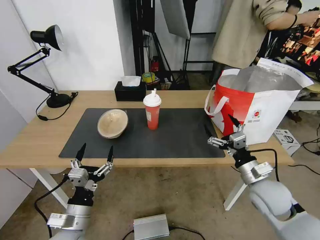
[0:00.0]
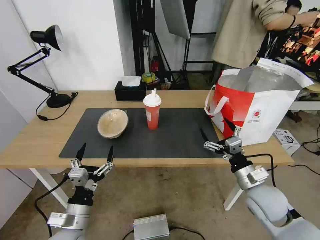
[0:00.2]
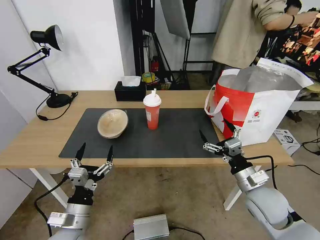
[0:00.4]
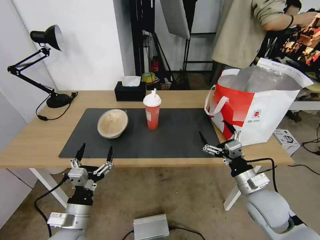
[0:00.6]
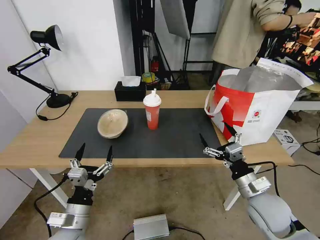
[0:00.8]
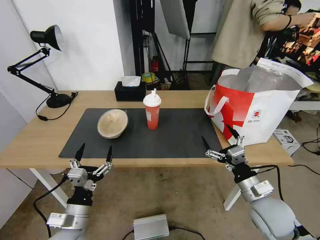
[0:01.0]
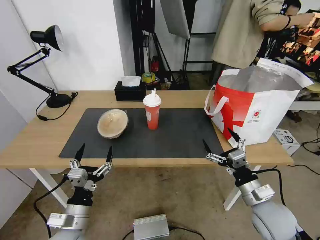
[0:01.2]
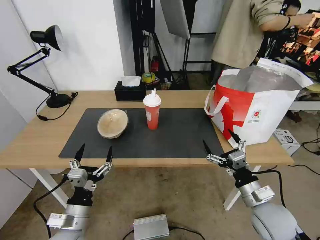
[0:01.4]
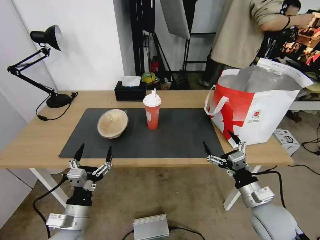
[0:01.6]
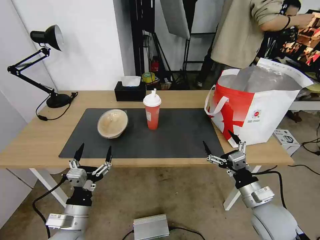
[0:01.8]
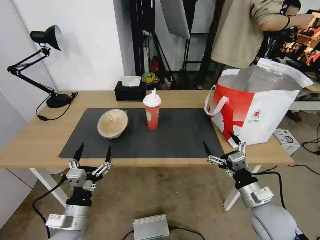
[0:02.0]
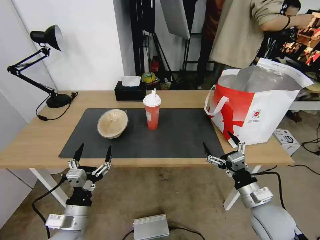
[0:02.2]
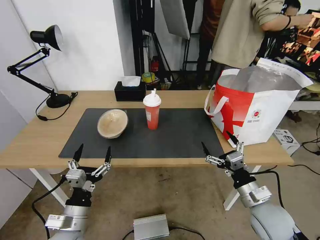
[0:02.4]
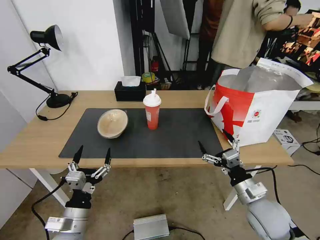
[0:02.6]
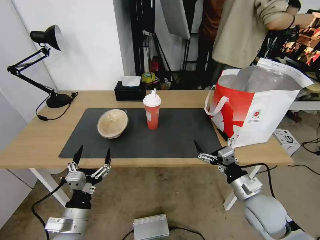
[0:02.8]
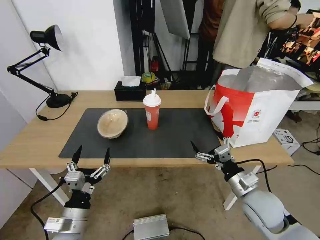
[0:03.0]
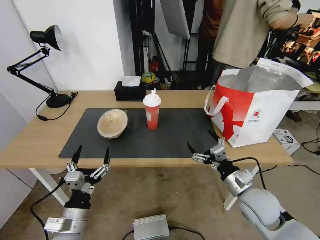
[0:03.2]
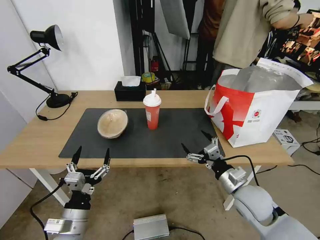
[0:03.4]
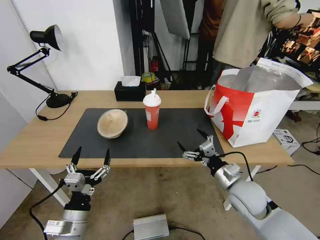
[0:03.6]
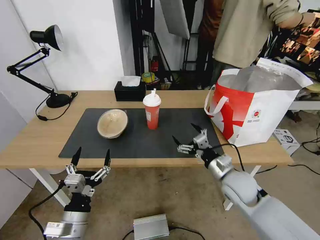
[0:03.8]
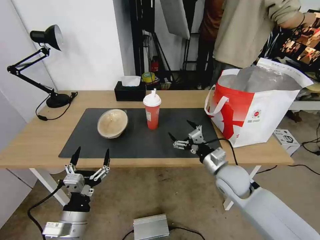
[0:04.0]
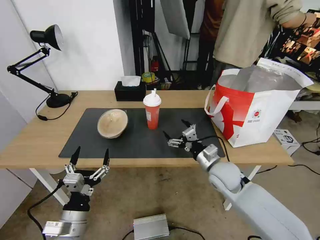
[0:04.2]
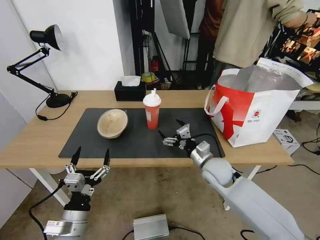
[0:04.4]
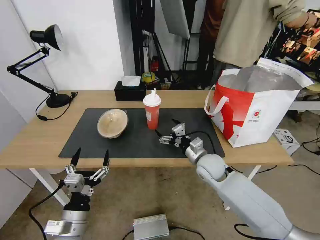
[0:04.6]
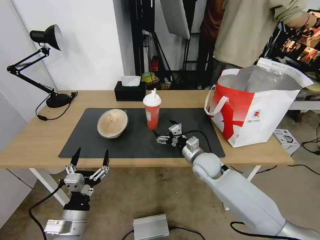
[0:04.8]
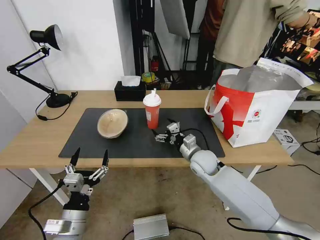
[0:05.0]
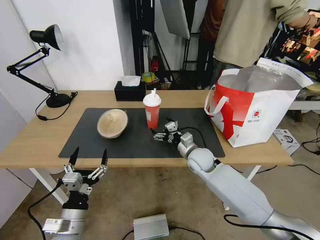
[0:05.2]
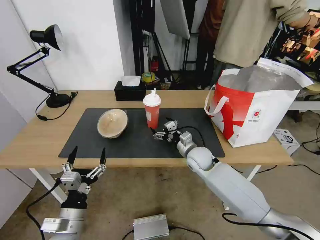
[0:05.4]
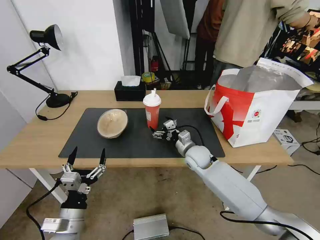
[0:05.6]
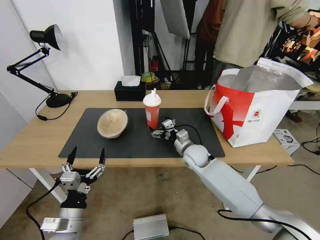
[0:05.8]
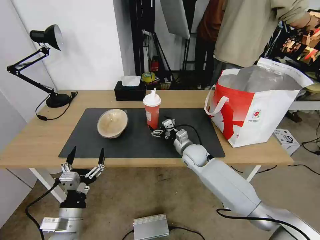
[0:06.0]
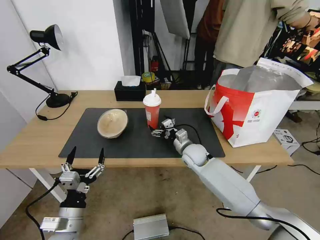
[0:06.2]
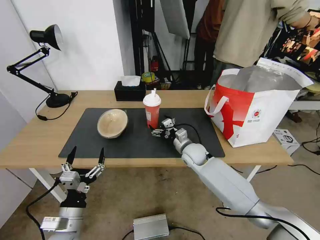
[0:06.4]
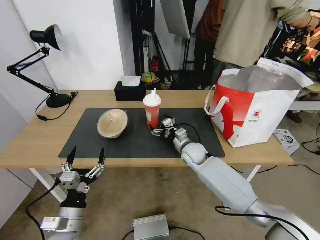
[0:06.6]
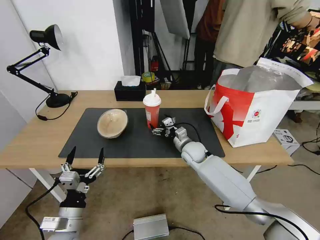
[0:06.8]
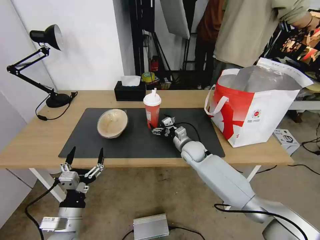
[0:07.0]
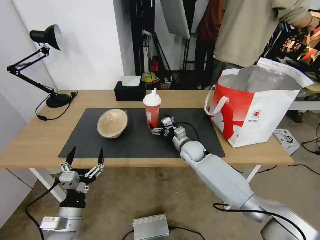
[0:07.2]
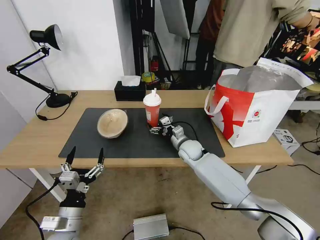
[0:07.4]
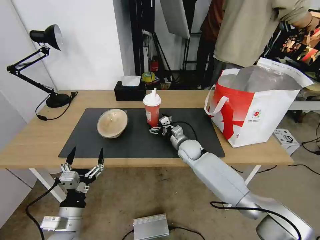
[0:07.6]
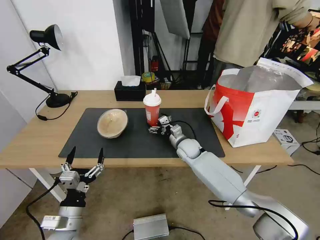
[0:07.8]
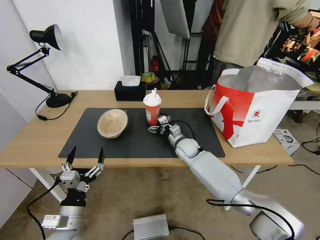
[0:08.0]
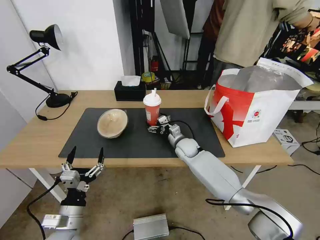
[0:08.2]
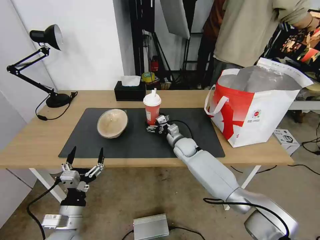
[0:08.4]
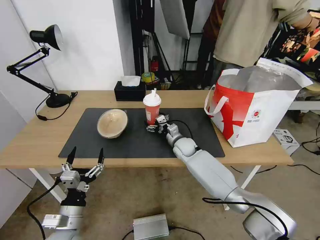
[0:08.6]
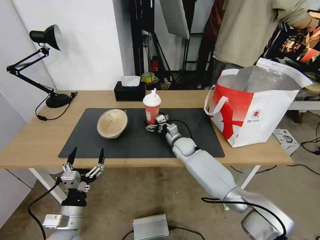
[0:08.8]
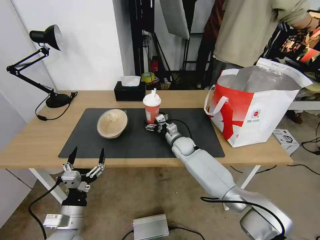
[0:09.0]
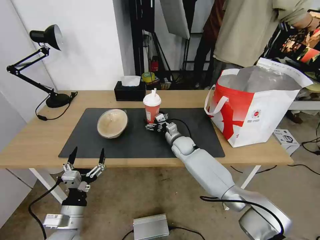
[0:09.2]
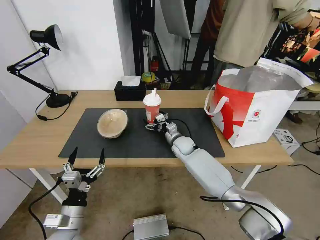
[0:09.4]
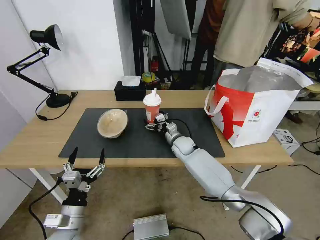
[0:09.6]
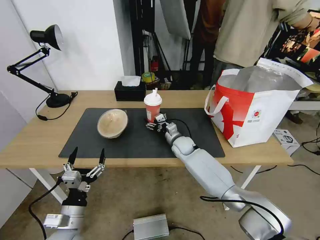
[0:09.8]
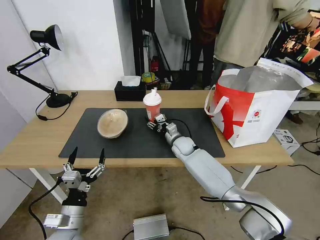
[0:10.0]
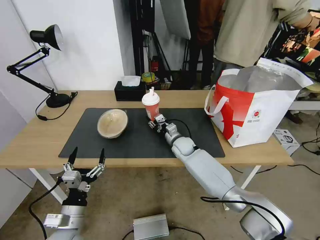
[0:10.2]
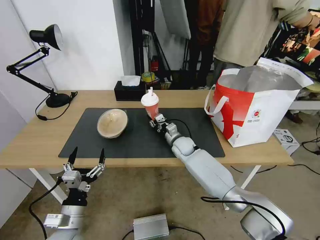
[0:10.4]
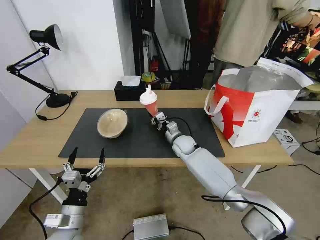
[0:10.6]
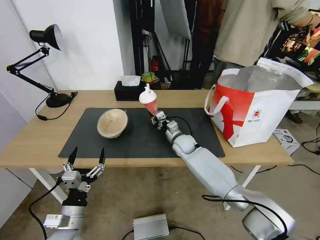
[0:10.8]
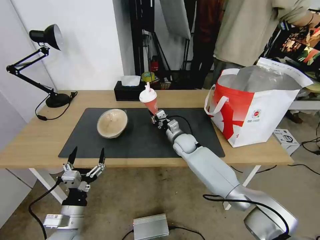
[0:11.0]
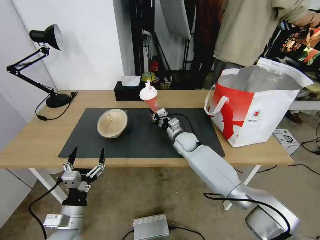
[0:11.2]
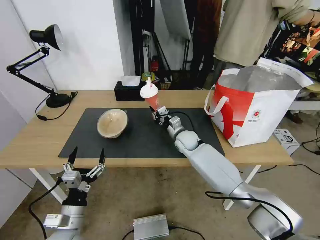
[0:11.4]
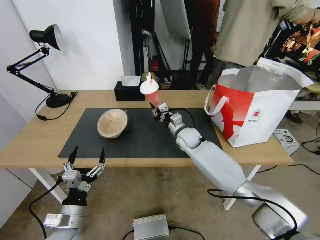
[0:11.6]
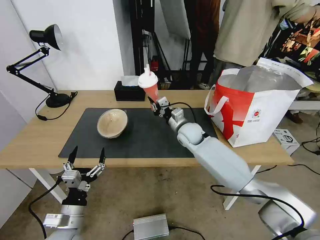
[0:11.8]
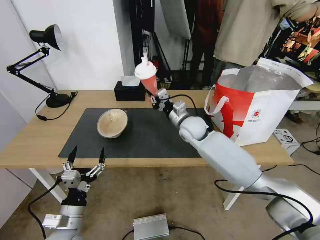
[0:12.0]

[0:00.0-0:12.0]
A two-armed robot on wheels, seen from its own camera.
Task of the whole recording: Pick up the trash from the table and place it into the takeout bag.
0:00.0 to 0:01.6: The right gripper is displaced backward by some 5 cm.
0:01.6 to 0:03.0: The grippers stay close to where they were, moving slightly.
0:03.0 to 0:04.4: The right gripper travels forward and to the left by some 15 cm.
0:04.4 to 0:06.0: The right gripper heads forward and to the left, covering about 10 cm.
0:06.0 to 0:07.6: The grippers stay close to where they were, moving slightly.
0:07.6 to 0:09.0: The grippers make only small movements.
0:09.0 to 0:10.4: The right gripper closes up.
0:10.4 to 0:12.0: The right gripper goes roughly 15 cm upward.

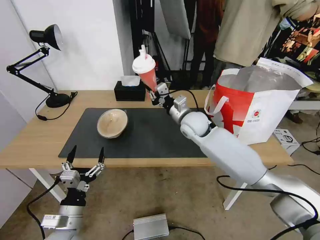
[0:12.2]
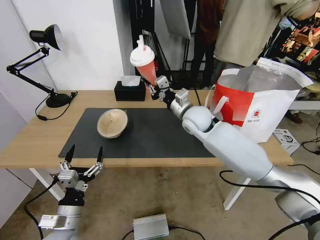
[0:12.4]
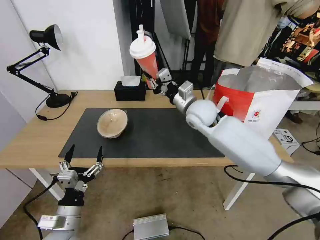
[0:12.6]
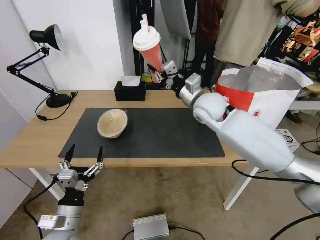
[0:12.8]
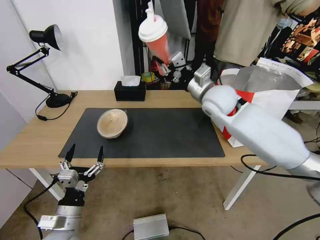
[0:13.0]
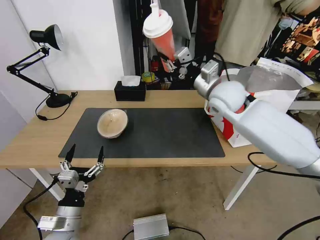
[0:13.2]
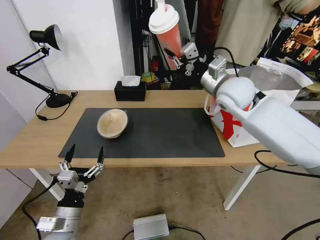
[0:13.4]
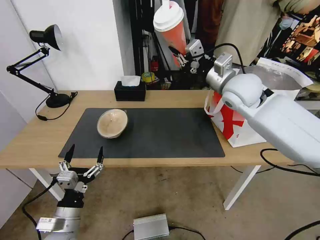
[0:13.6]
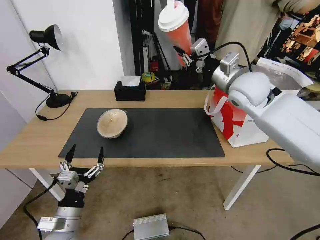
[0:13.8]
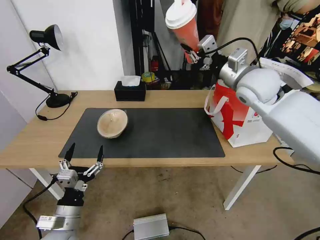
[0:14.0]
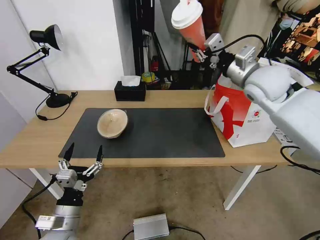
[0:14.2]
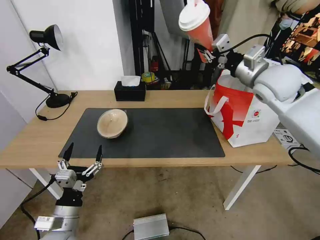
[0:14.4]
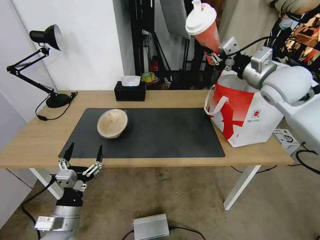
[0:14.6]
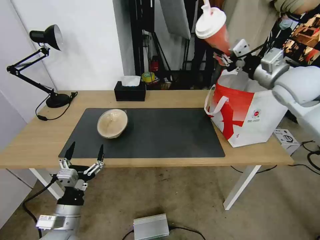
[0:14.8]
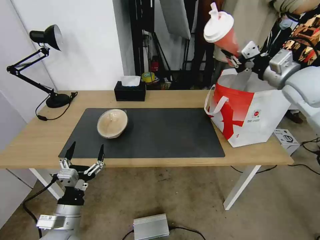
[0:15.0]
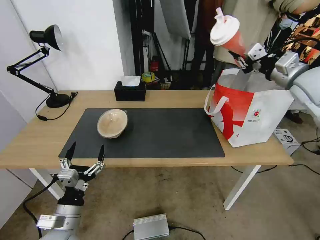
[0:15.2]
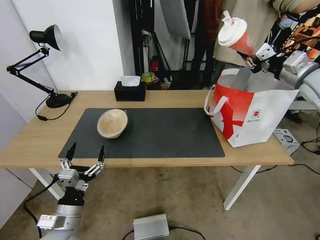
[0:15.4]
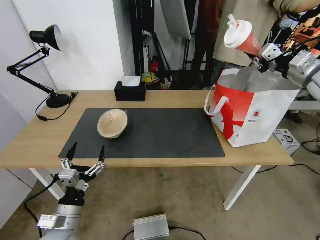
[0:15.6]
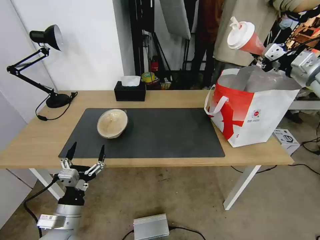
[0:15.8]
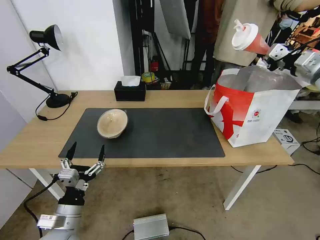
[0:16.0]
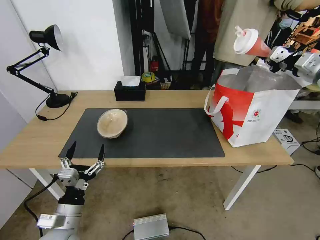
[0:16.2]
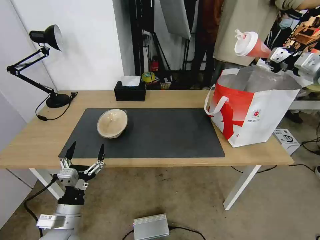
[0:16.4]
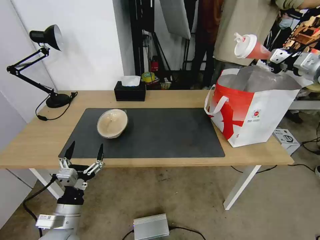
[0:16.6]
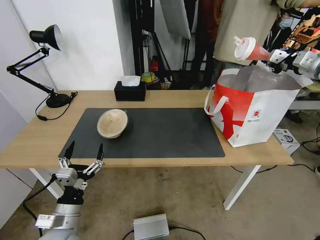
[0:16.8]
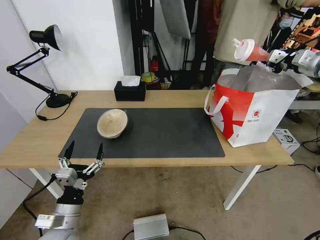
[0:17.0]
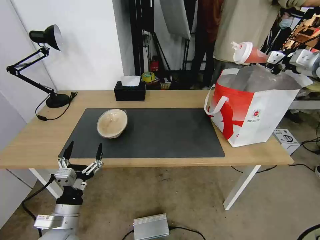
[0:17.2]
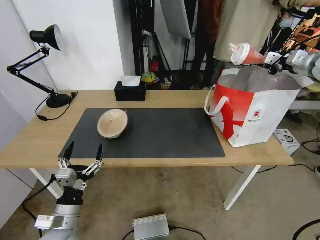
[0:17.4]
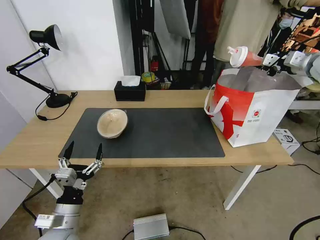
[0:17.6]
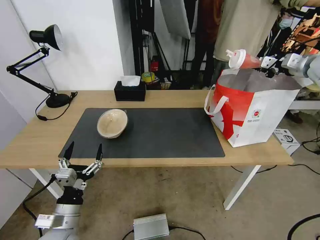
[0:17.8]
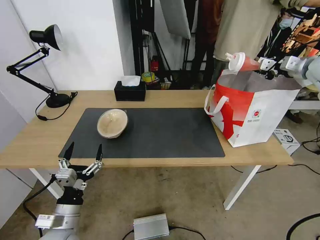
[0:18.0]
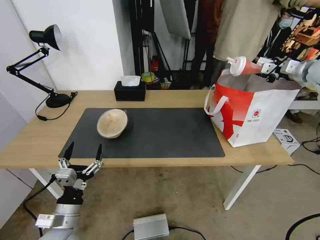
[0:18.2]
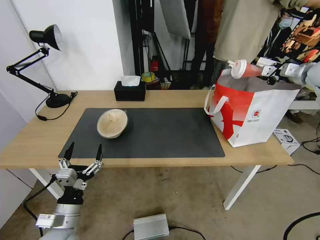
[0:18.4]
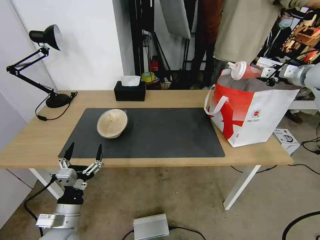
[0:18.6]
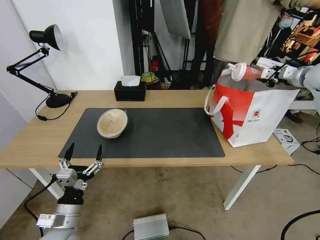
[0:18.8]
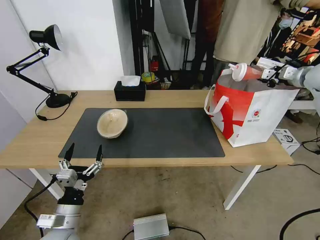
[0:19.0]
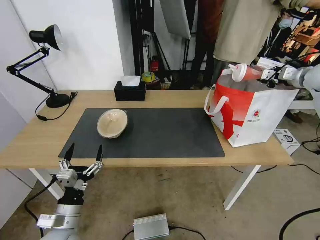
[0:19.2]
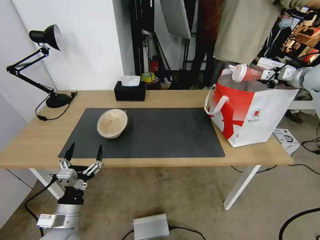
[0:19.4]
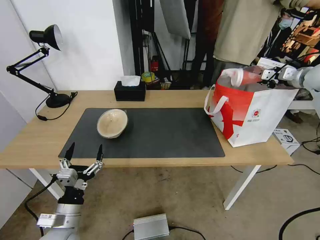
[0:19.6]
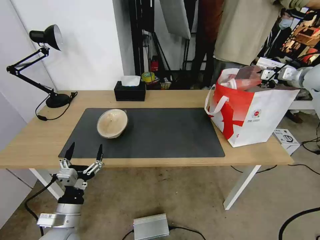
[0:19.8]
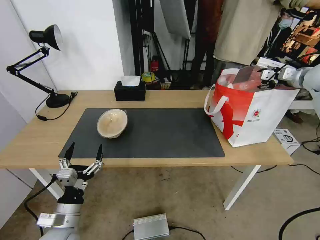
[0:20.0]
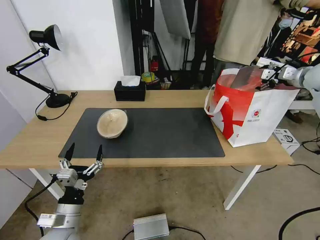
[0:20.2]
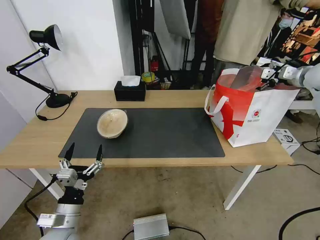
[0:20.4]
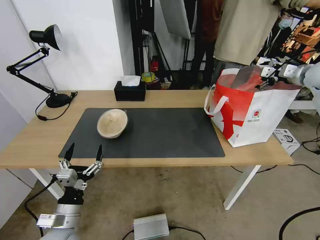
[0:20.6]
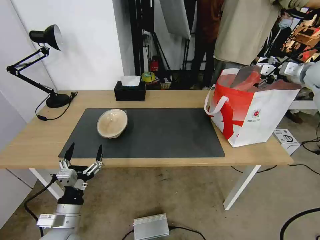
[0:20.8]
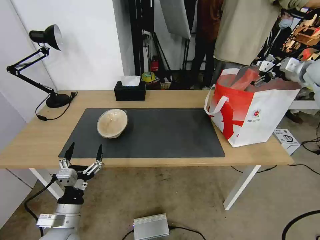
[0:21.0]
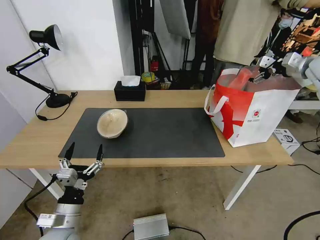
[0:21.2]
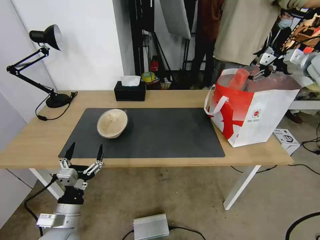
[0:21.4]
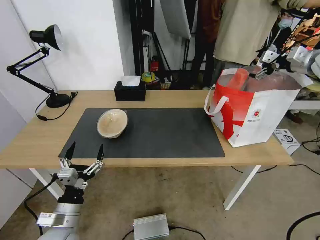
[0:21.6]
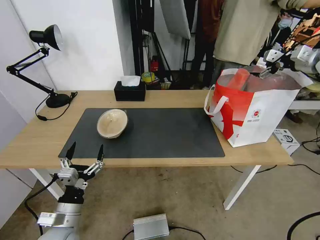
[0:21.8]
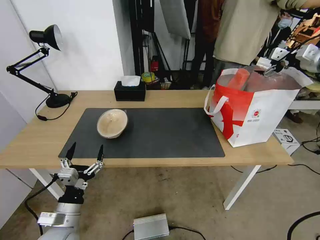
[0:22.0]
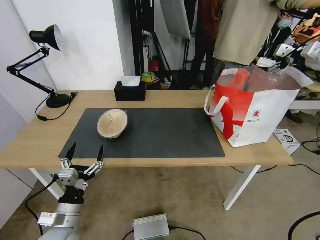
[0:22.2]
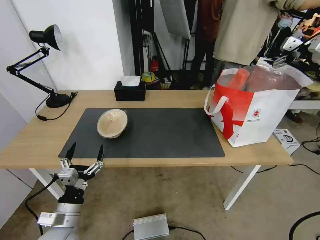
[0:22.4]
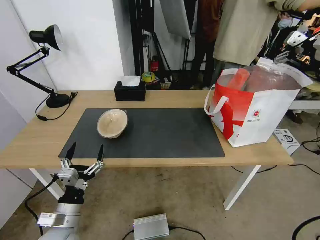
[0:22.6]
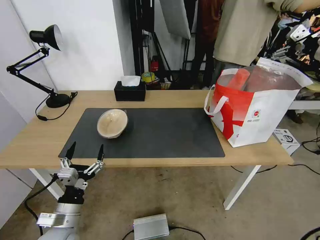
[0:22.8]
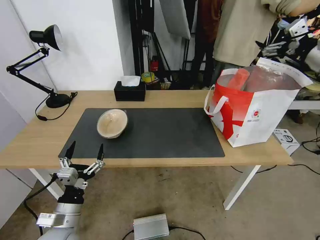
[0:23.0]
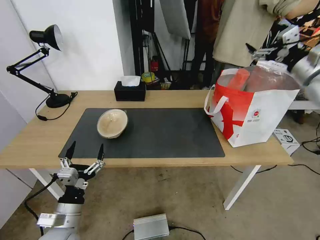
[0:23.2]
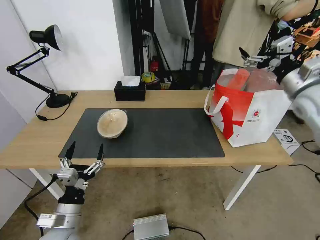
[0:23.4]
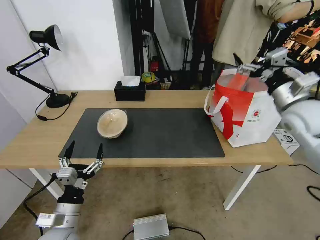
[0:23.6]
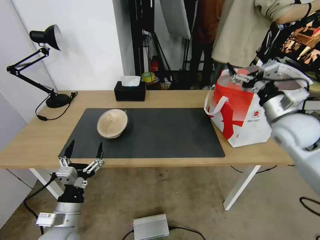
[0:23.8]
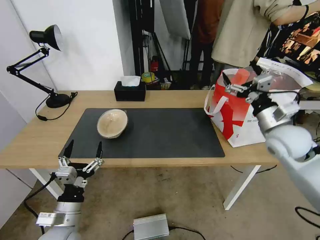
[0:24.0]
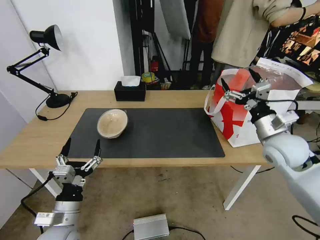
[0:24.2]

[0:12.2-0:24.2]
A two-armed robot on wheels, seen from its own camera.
Task of the whole recording: Pick up the trash from the table and place it into the takeout bag.
0:12.2 to 0:13.8: The right gripper moves upward and to the right, some 20 cm.
0:13.8 to 0:15.2: The right gripper goes some 15 cm to the right.
0:15.2 to 0:16.6: The right gripper moves to the right, about 10 cm.
0:16.6 to 0:18.2: The right gripper moves forward, approximately 5 cm.
0:18.2 to 0:19.8: The right gripper opens.
0:19.8 to 0:21.2: The right gripper opens.
0:21.2 to 0:22.6: The right gripper shifts by approximately 5 cm.
0:22.6 to 0:24.2: The right gripper shifts some 35 cm to the left, downward and backward.
